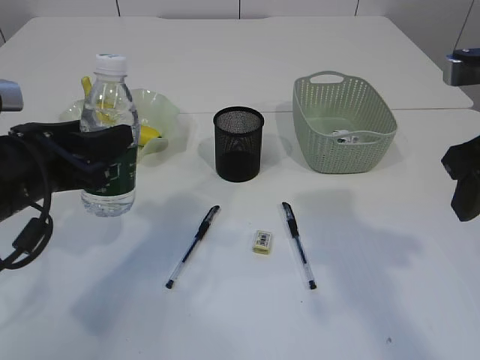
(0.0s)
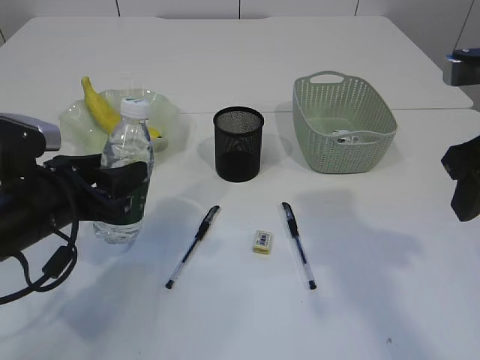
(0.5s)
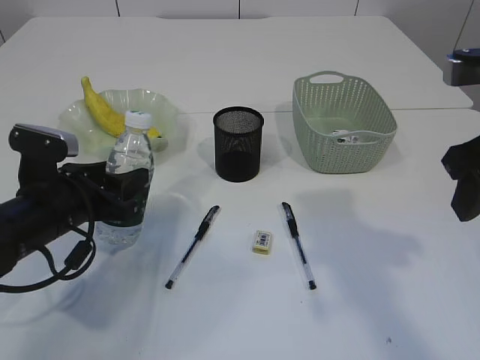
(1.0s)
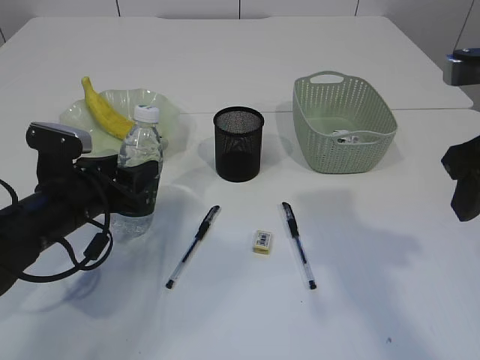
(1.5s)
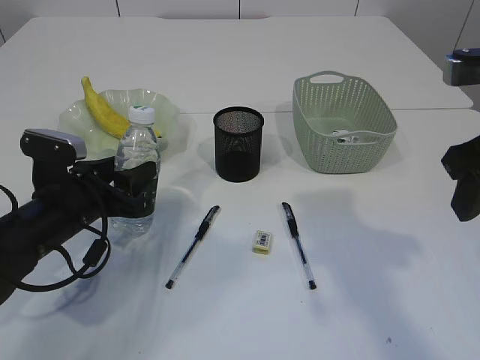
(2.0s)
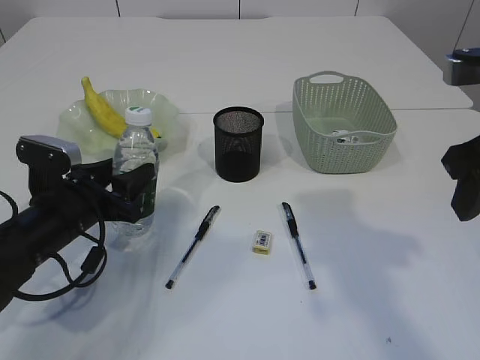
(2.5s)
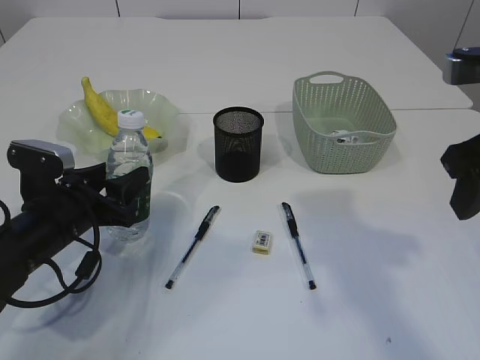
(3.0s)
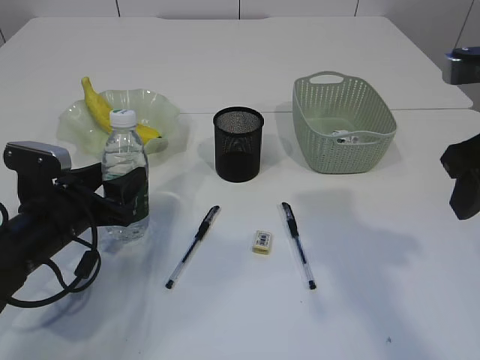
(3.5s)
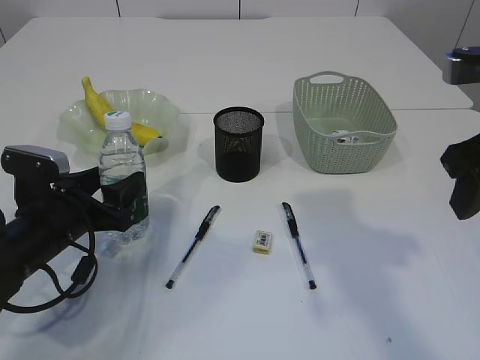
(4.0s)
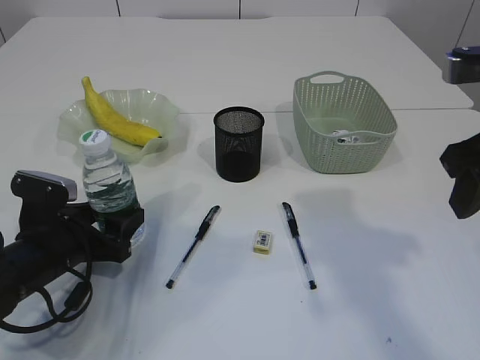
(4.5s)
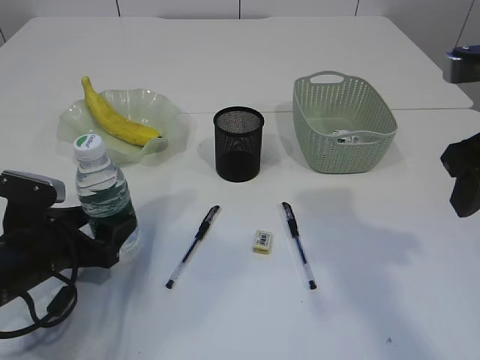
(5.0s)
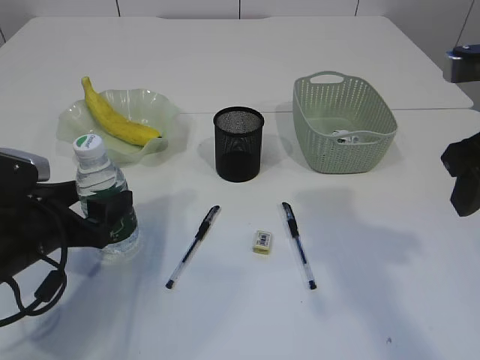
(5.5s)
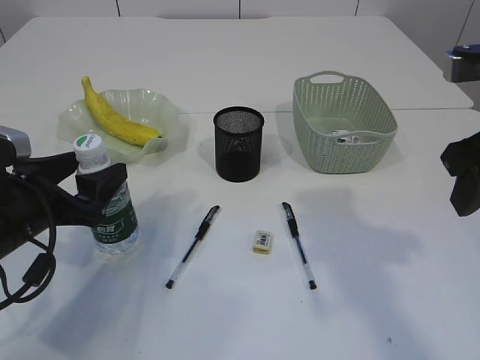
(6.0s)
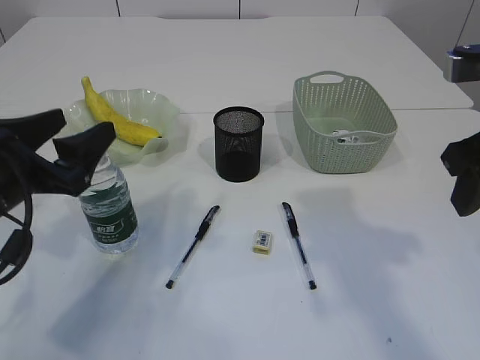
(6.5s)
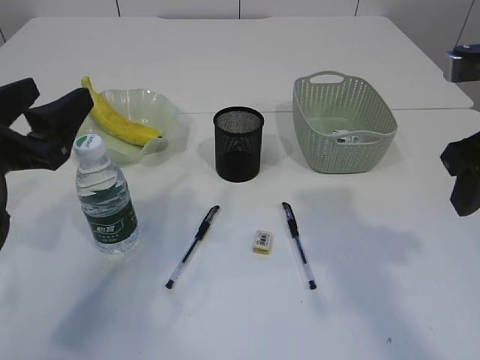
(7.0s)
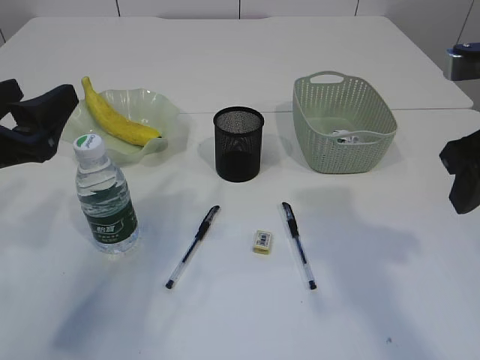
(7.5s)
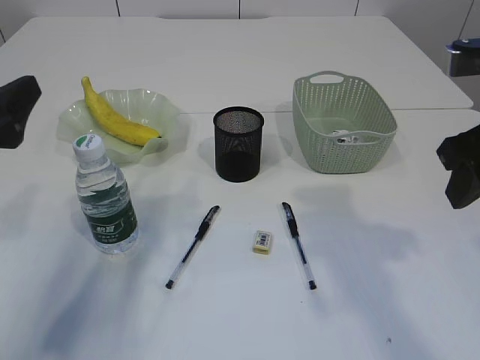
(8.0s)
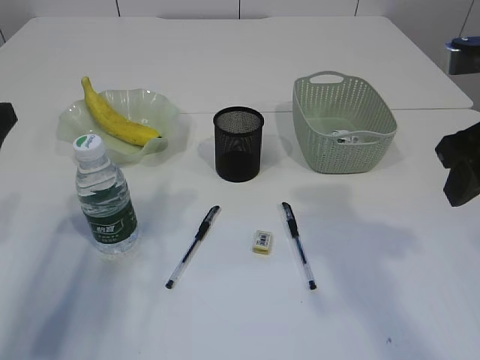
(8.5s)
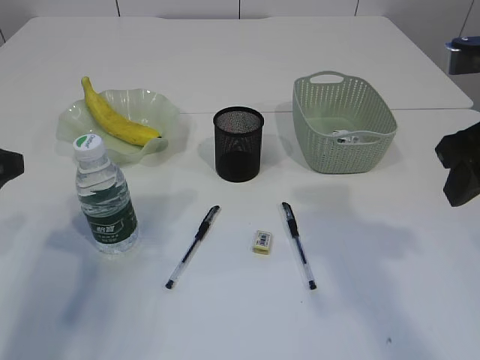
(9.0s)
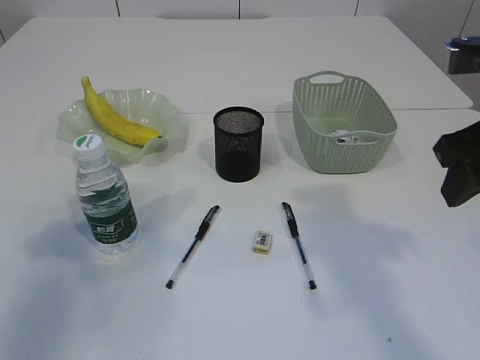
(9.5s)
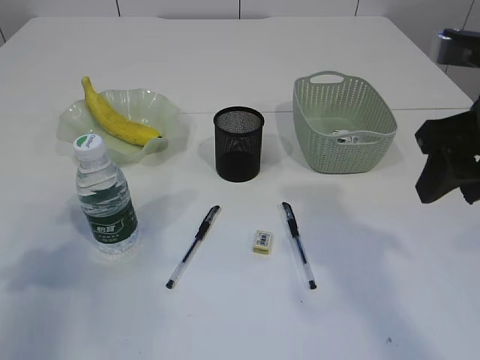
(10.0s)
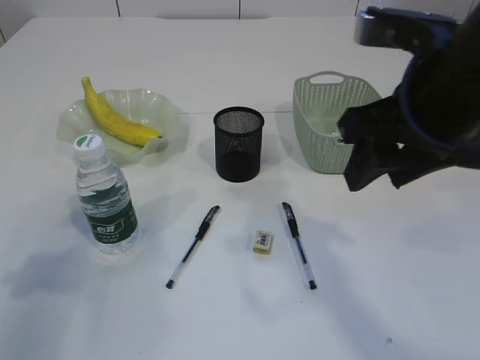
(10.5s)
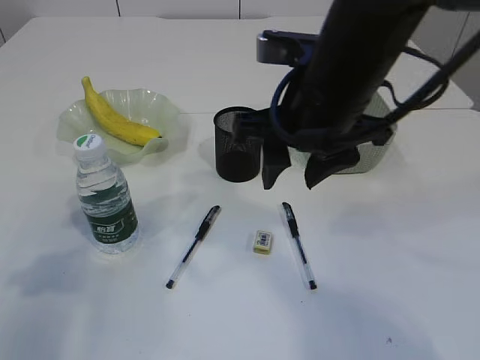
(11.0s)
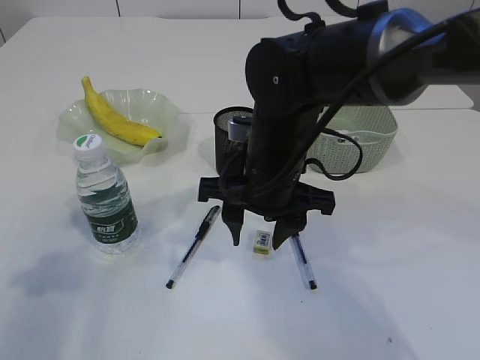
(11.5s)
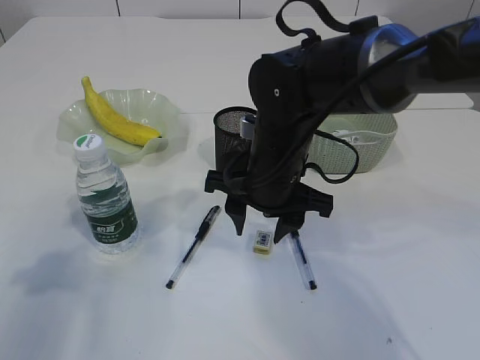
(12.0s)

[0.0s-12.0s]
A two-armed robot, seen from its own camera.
Step, 0.0s to 6.5s: Place the bottle.
0.0s to 2.0s: The left gripper goes roughly 10 cm downward.
2.0s to 4.0s: There are only small adjustments of the grippers.
4.0s to 6.0s: The left gripper shifts roughly 5 cm upward, and opens up.
6.0s to 8.0s: The left gripper shifts some 10 cm upward.
8.0s to 10.0s: The left gripper travels to the left by some 5 cm.
10.0s to 12.0s: The right gripper shifts some 25 cm to the left, downward and forward.

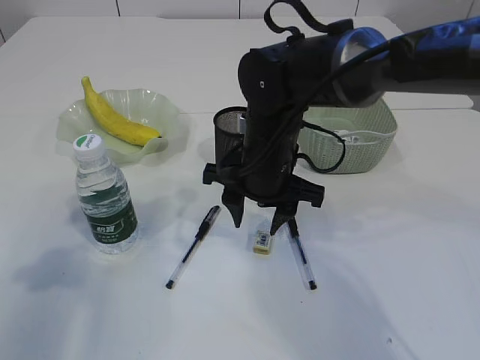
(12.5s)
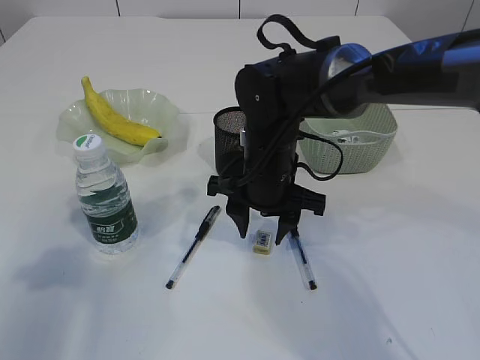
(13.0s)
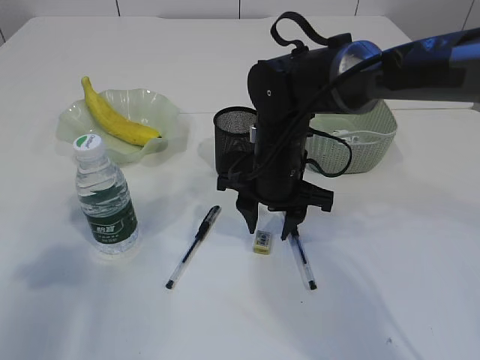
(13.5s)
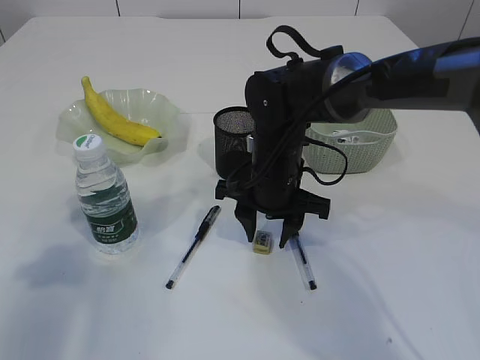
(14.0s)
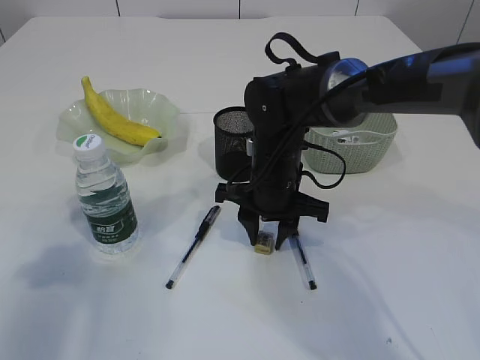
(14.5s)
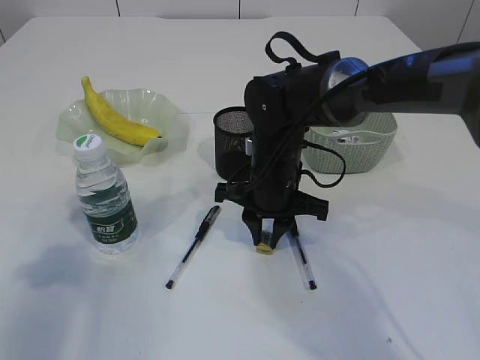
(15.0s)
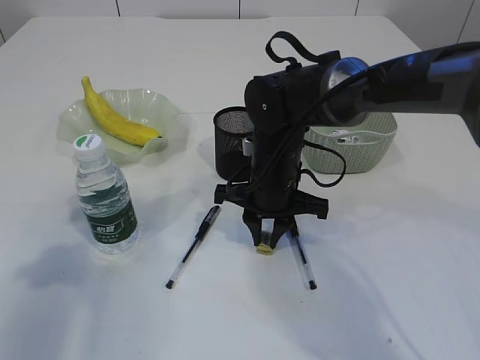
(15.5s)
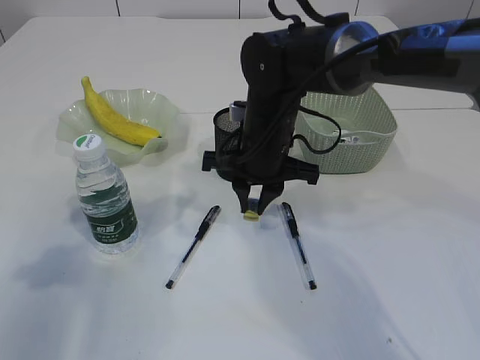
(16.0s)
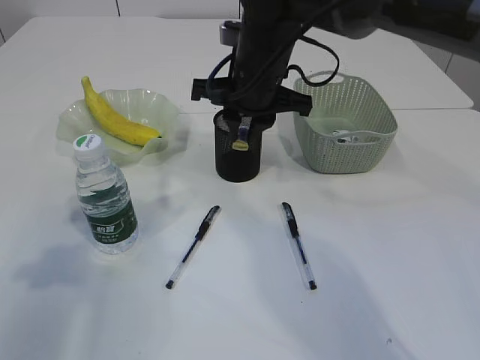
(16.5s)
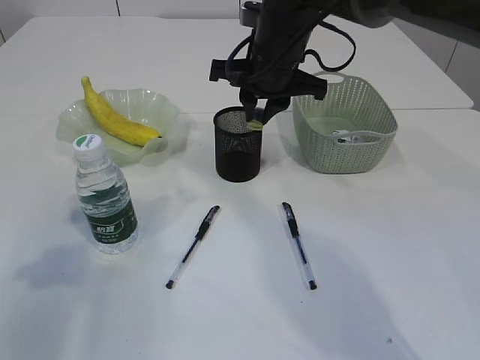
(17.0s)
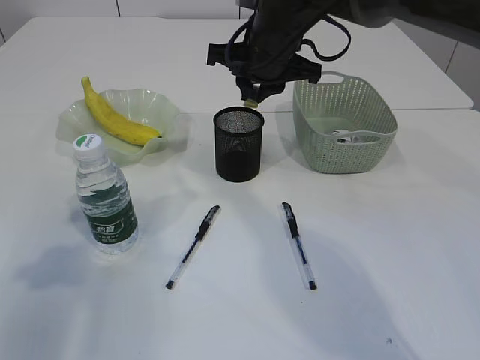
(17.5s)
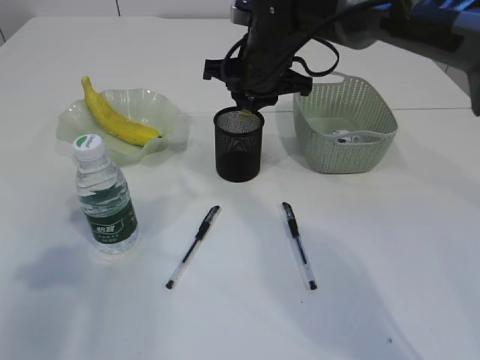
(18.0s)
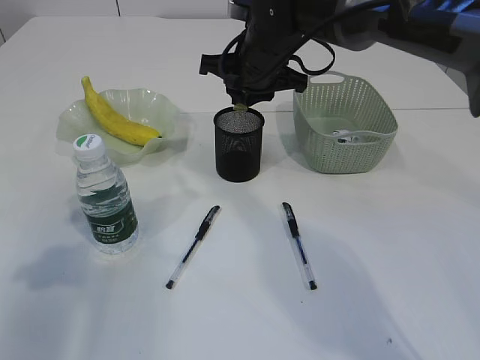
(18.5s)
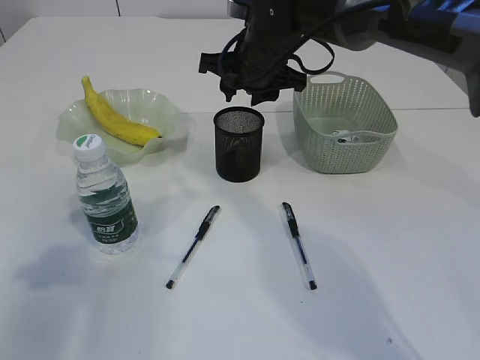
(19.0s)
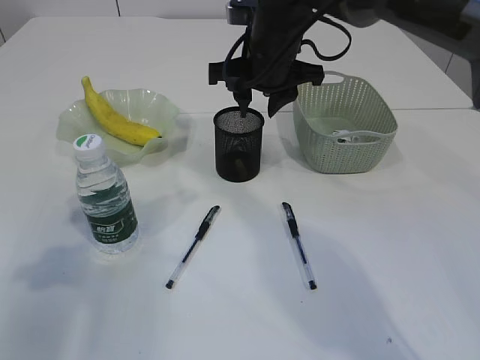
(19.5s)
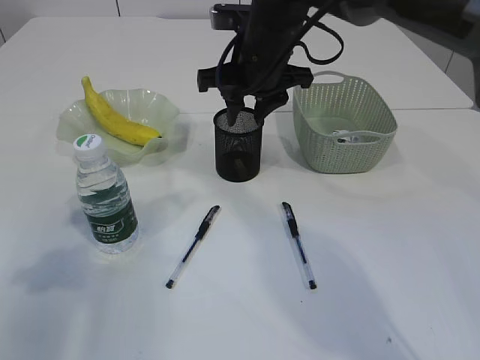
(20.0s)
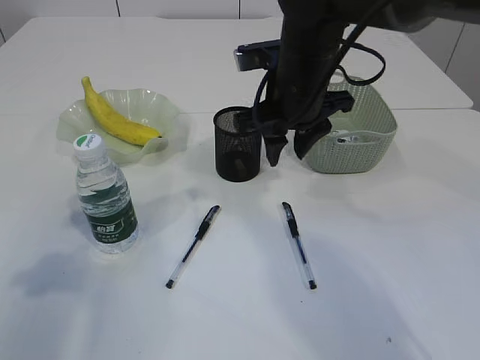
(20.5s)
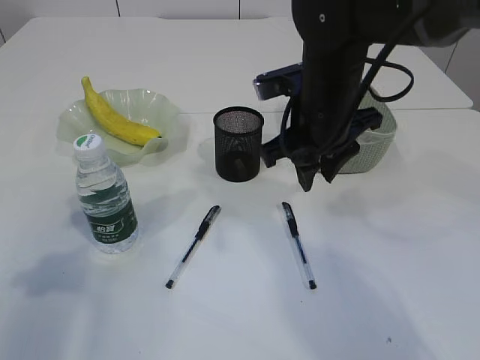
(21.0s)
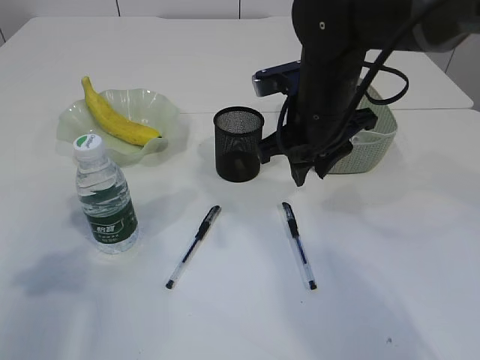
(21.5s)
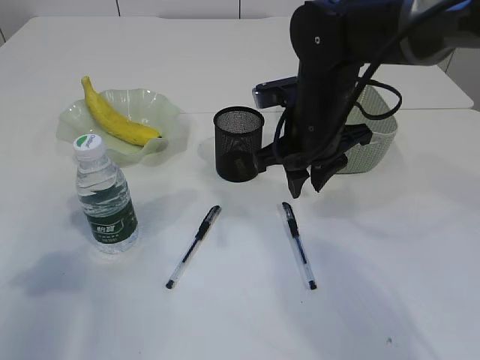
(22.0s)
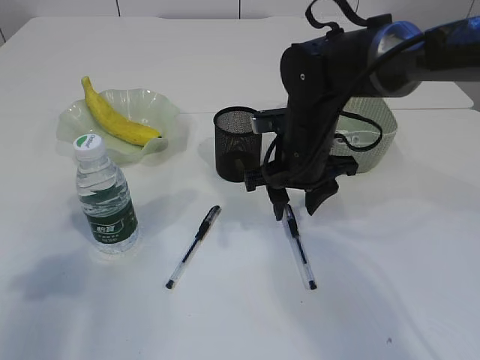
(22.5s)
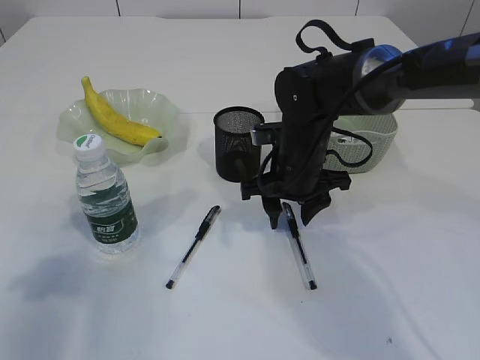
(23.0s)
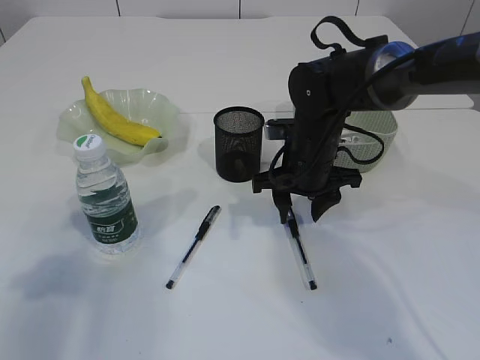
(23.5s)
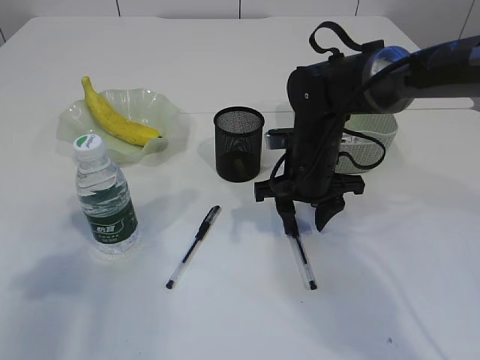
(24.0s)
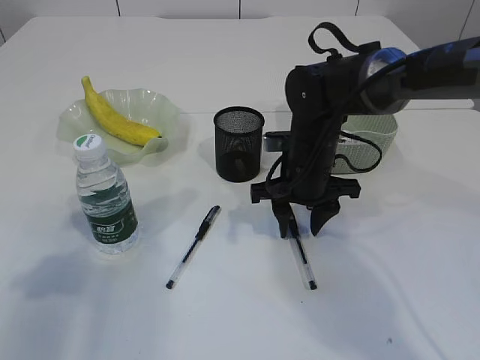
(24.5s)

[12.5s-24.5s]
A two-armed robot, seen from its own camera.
Step, 12.5s to 16.0s: Pick up the eraser.
Step, 16.5s to 19.5s: Place the eraser into the pen holder.
12.5s to 14.5s: The grippers make only small movements.
14.5s to 16.5s: The right gripper goes about 10 cm upward.
16.5s to 18.5s: The grippers stay close to where they were, moving slightly.
18.5s to 20.5s: The right gripper shifts approximately 5 cm backward.
20.5s to 22.5s: The right gripper shifts some 10 cm downward.
22.5s to 24.5s: The grippers stay close to where they were, moving slightly.

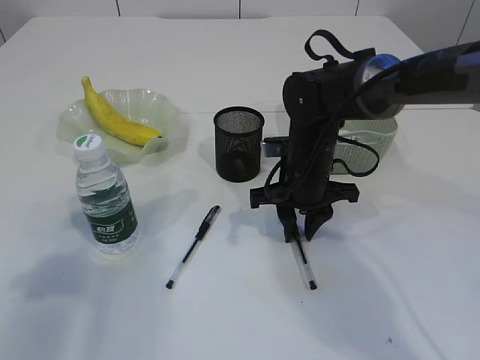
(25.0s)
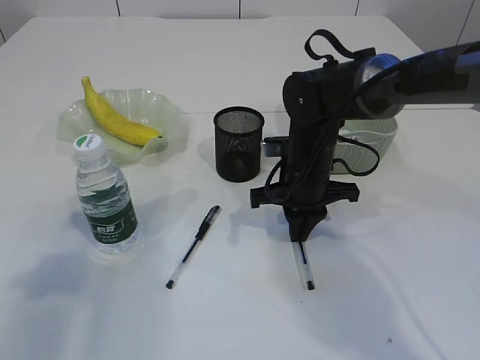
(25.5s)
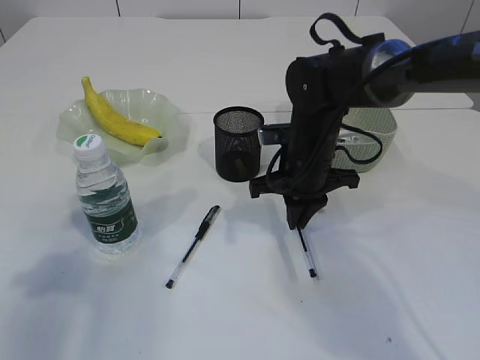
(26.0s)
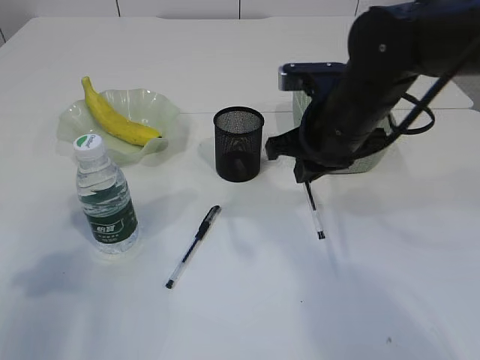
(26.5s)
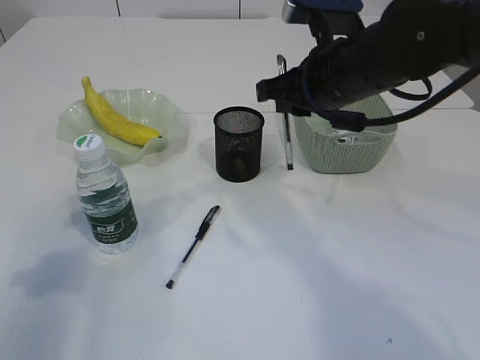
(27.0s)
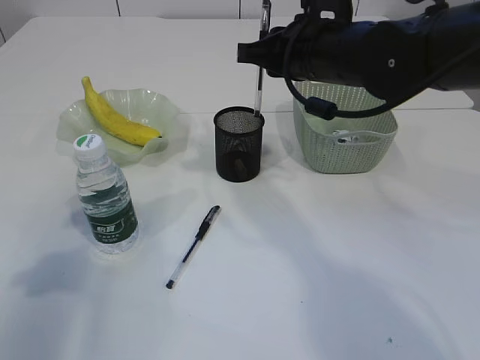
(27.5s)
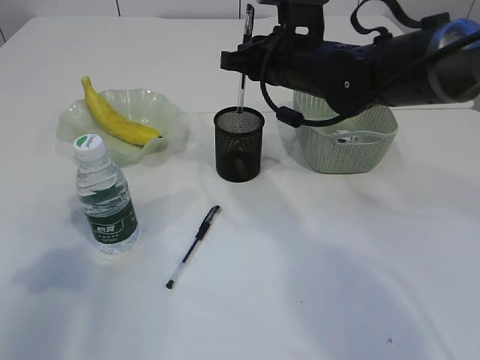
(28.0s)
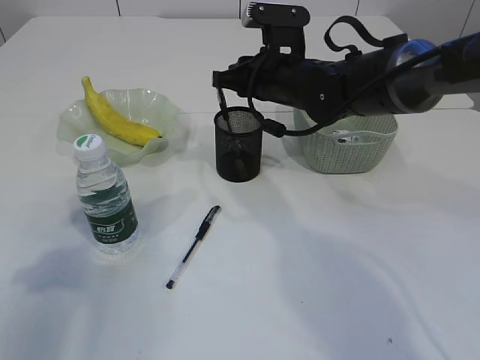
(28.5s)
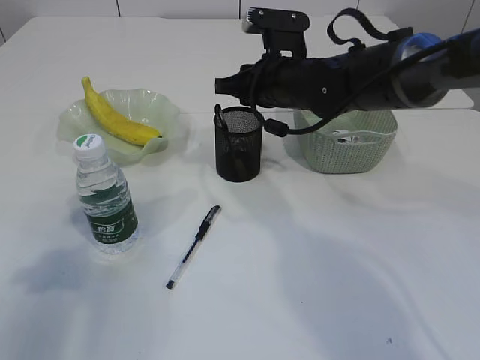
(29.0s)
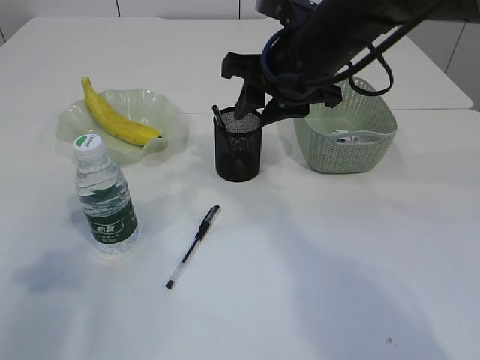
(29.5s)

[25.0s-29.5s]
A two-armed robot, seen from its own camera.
Step, 26.5s to 29.0s: Place the pen into the pen holder.
25.0s to 27.0s: The right gripper heads upward, covering approximately 15 cm, and closes.
27.0s to 29.5s: The right gripper goes forward and returns, approximately 10 cm each way, and opens.
